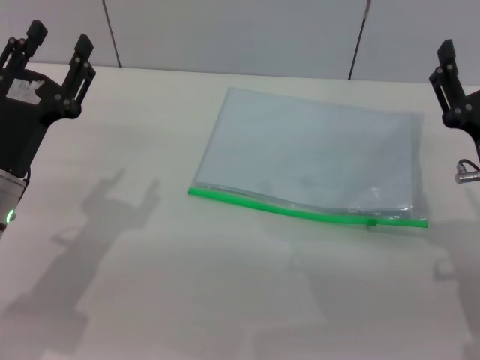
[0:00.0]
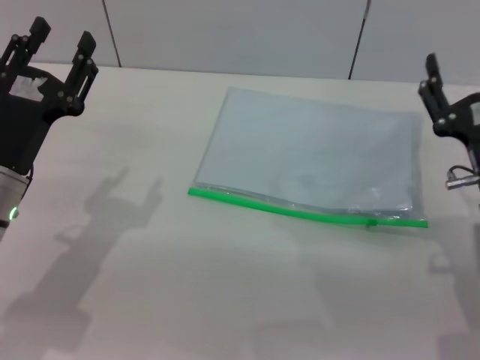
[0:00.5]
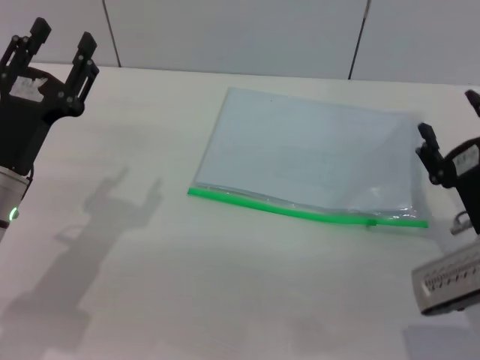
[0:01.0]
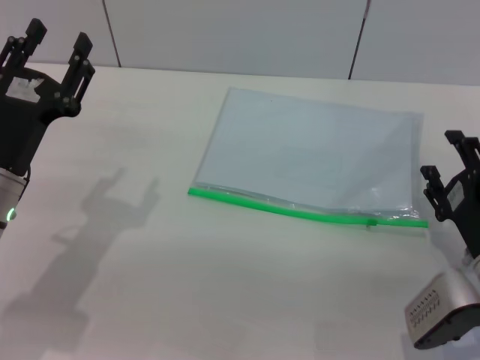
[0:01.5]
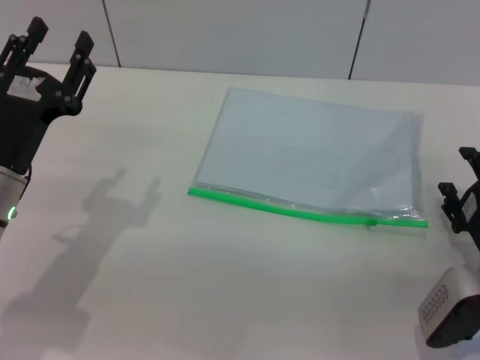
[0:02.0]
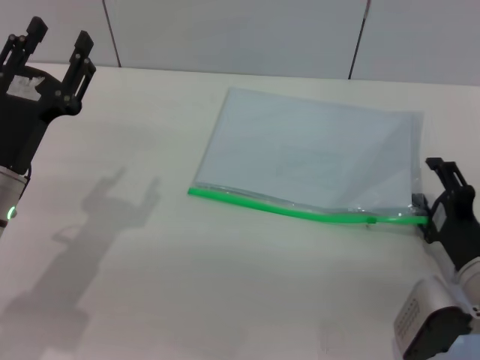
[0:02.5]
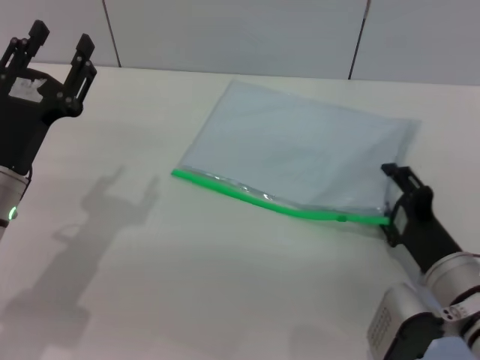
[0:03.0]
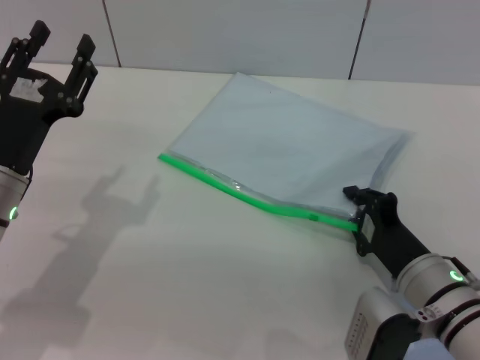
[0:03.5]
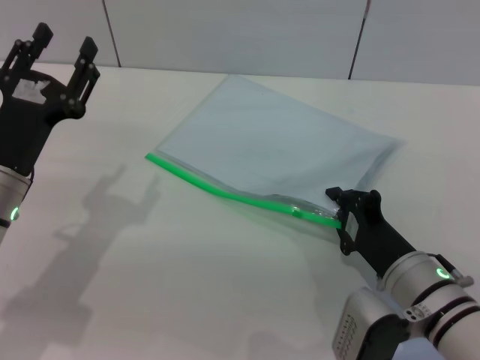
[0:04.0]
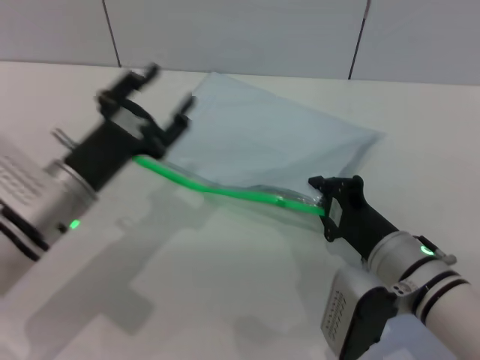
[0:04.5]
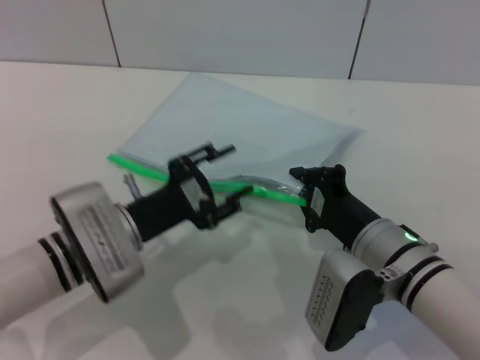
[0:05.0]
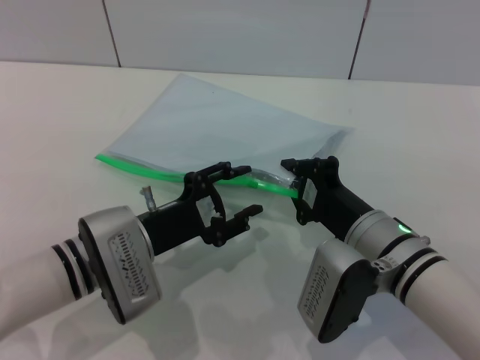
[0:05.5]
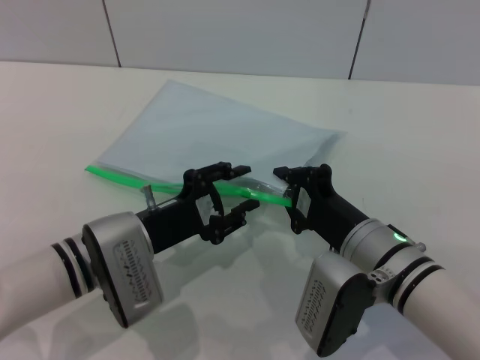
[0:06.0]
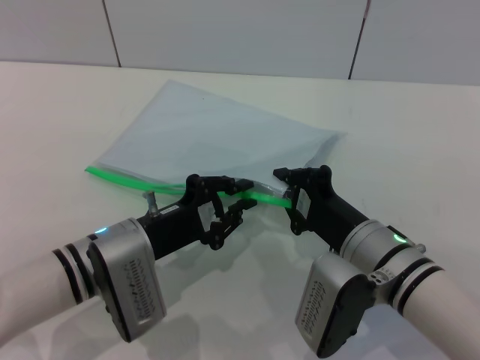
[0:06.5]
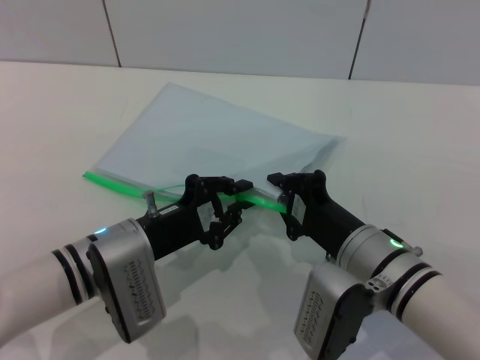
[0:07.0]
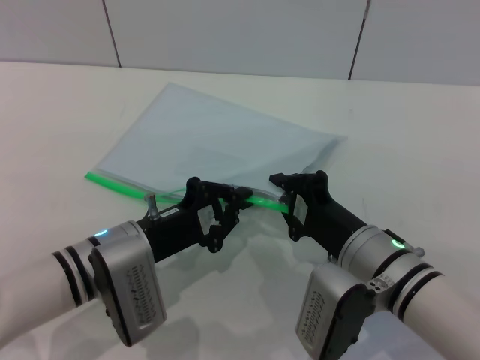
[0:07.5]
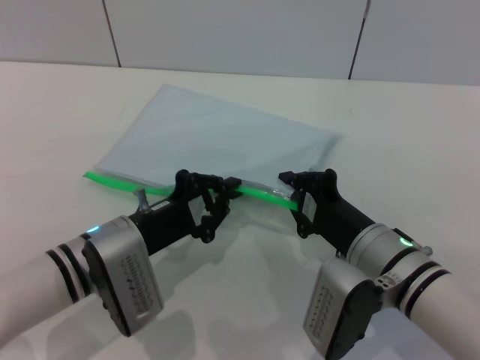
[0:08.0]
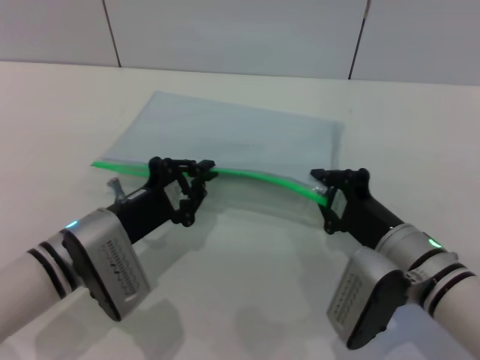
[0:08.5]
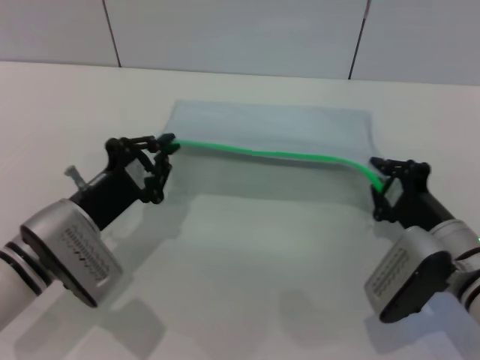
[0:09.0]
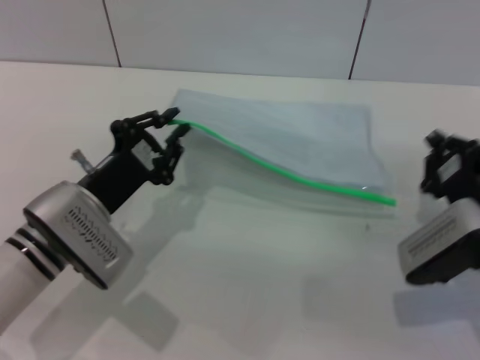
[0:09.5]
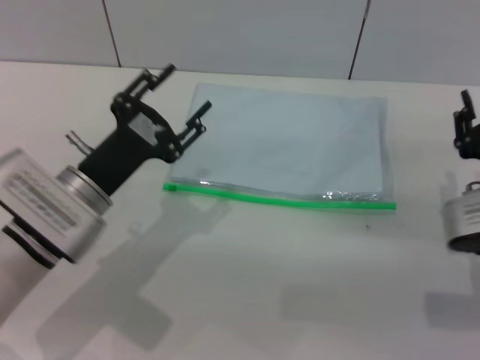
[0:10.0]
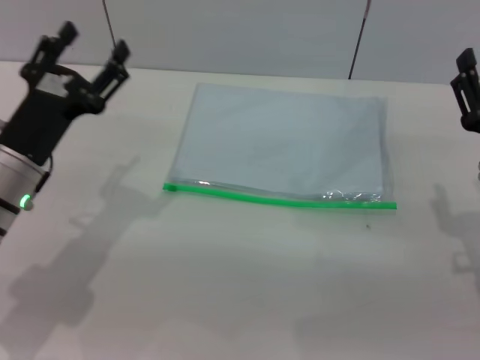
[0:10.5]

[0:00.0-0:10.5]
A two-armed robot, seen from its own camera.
Step, 0:00.0 to 0:04.5: Pick up the transparent plastic bag with the right gripper.
Step, 0:05.0 to 0:09.5: Pulling up the zipper on the transparent plastic bag with the left gripper to close it.
0:00.0 to 0:02.0: The right gripper goes some 10 cm downward.
0:02.0 to 0:04.0: The right gripper travels to the left by about 10 cm, and closes its fingers.
0:04.0 to 0:06.5: The left gripper shifts approximately 10 cm to the right and downward, and closes up, while the right gripper ends up about 5 cm from where it was.
0:08.5 to 0:10.5: The right gripper is displaced to the right and upward by some 10 cm, and opens up, while the left gripper goes some 10 cm to the left and upward, and opens its fingers.

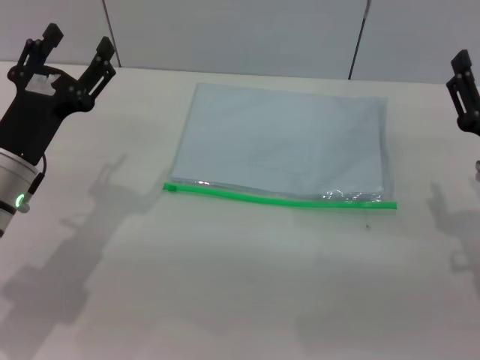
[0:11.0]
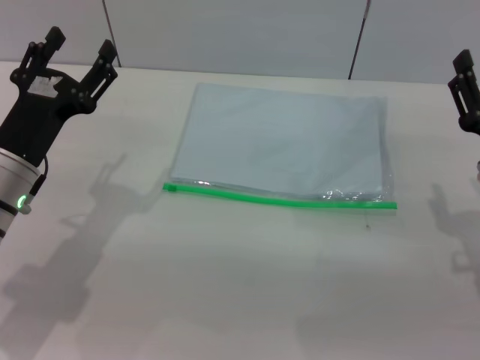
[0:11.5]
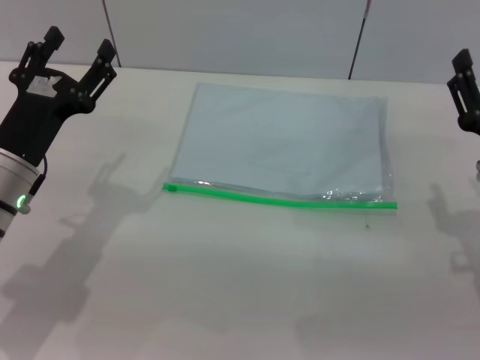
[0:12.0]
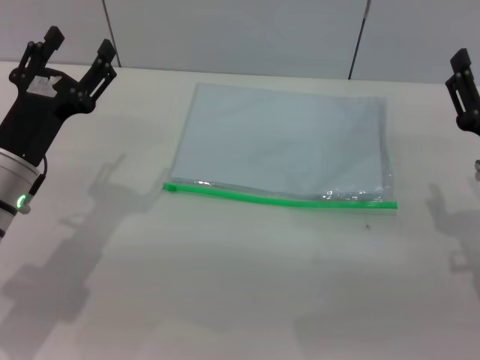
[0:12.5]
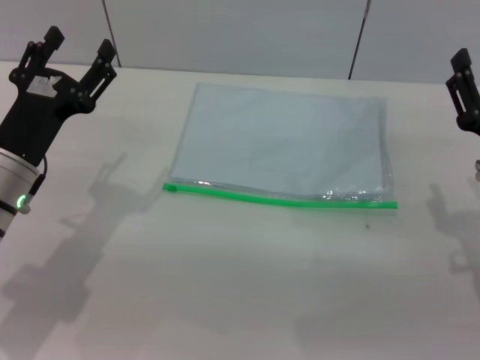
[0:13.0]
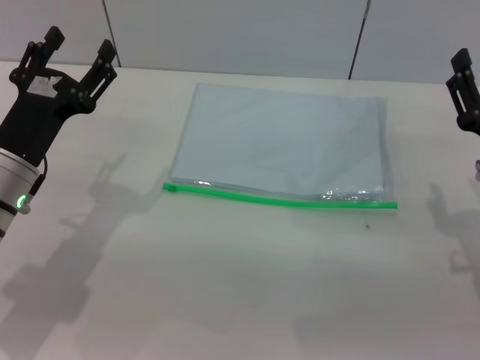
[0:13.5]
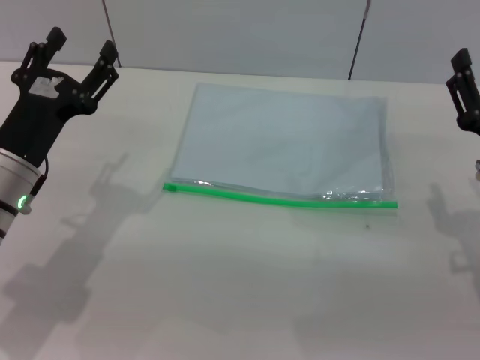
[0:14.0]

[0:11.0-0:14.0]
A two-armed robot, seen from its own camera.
0:11.0 to 0:14.0: Both grippers stay about where they are.
